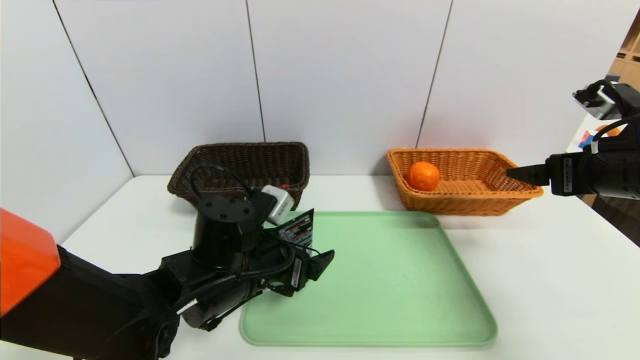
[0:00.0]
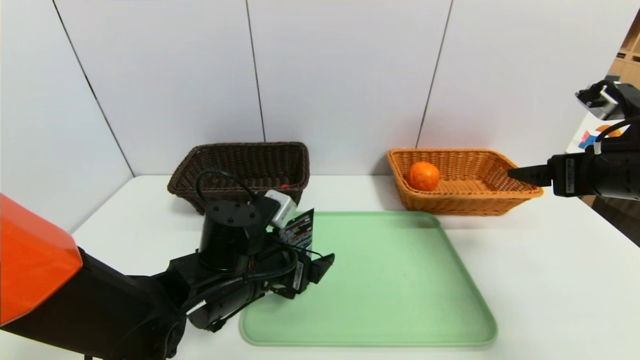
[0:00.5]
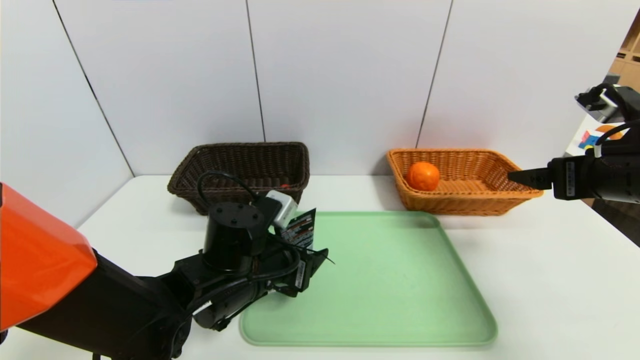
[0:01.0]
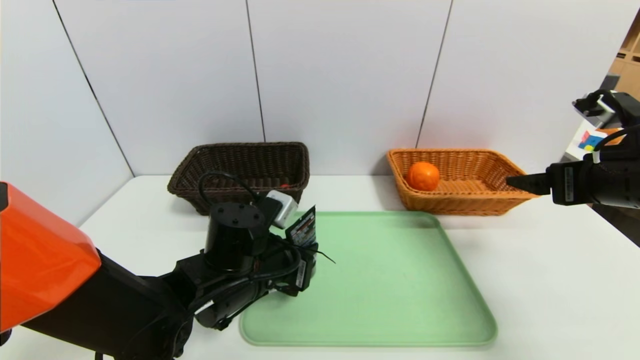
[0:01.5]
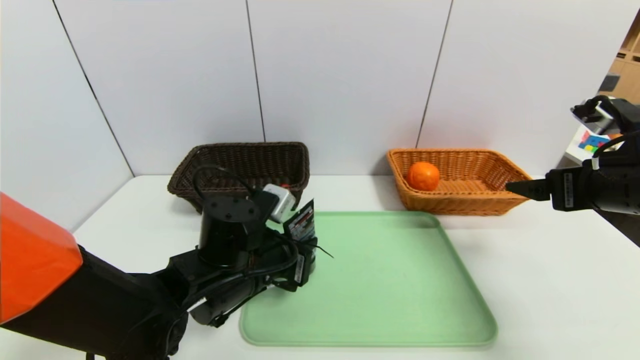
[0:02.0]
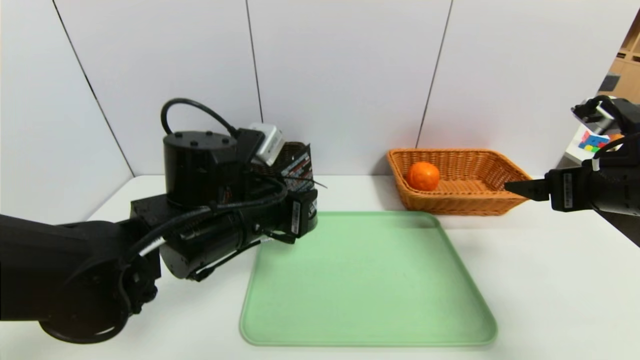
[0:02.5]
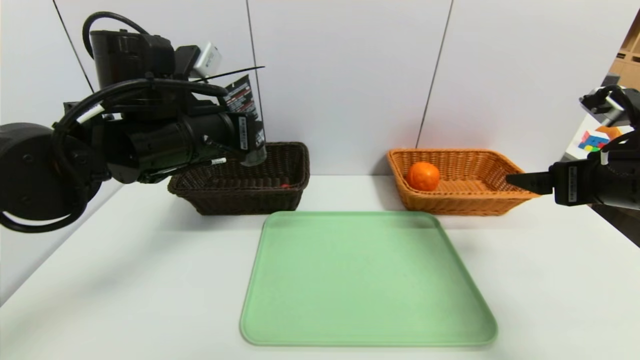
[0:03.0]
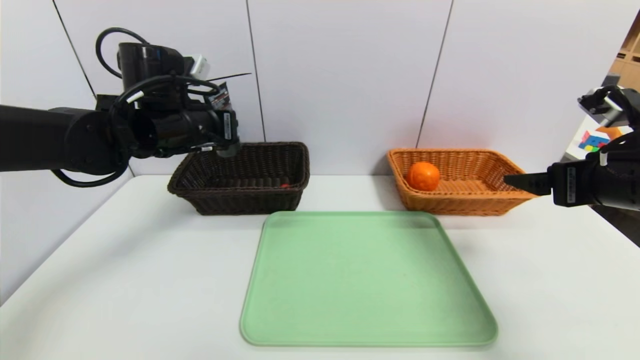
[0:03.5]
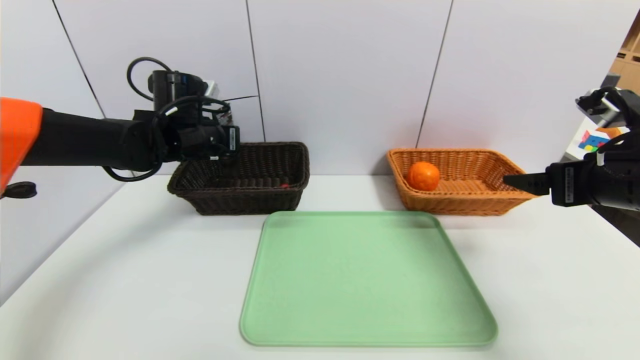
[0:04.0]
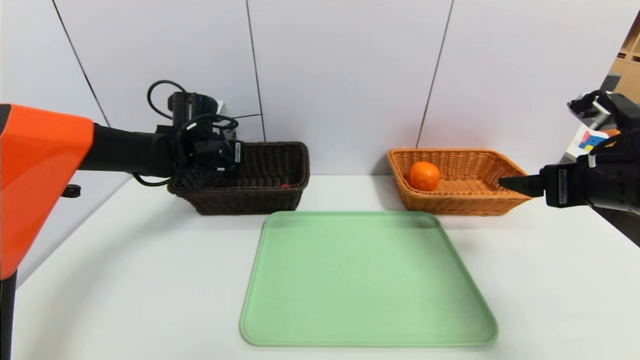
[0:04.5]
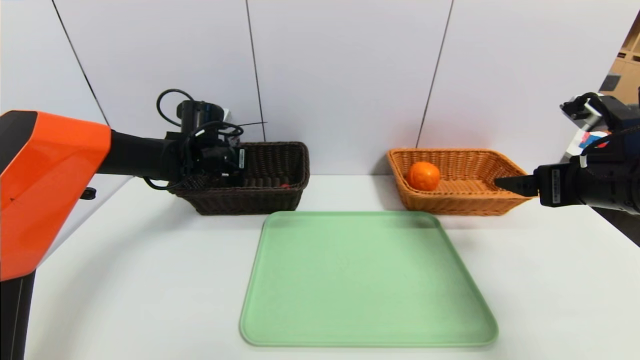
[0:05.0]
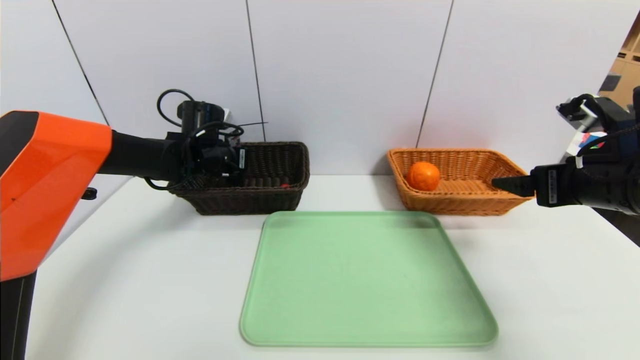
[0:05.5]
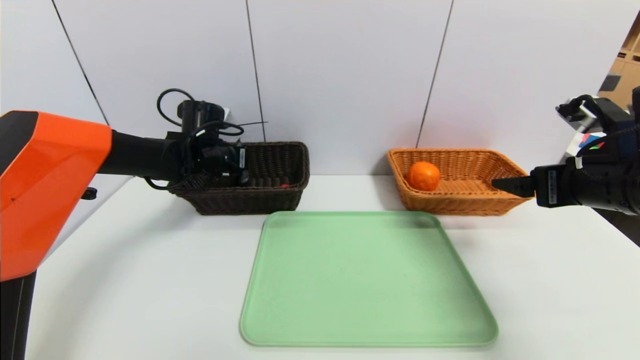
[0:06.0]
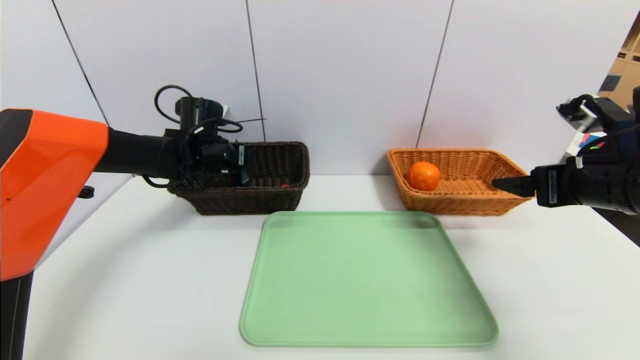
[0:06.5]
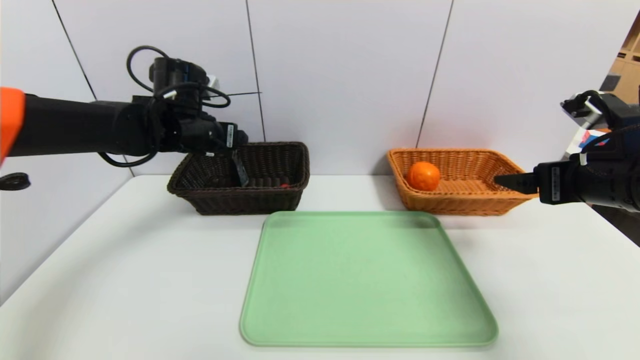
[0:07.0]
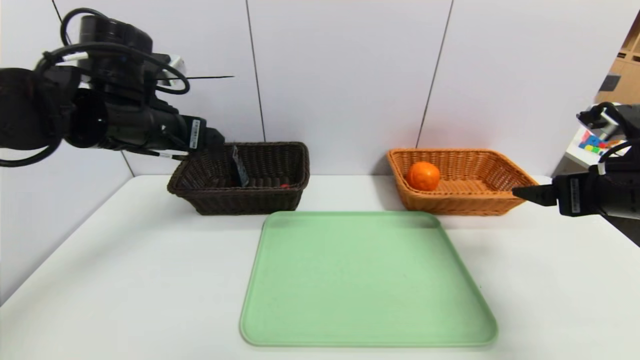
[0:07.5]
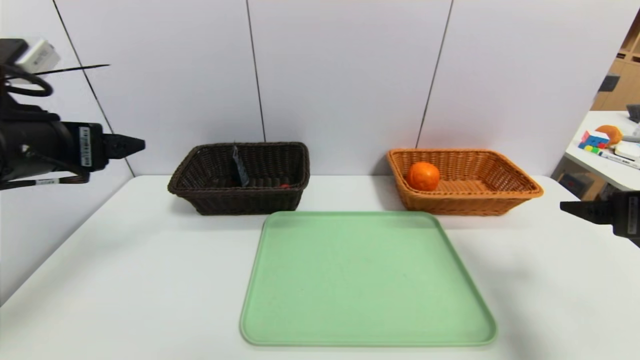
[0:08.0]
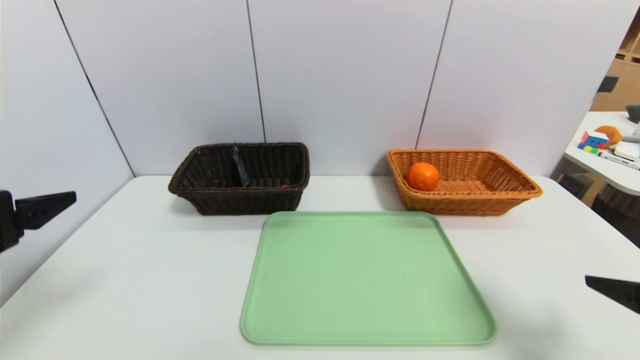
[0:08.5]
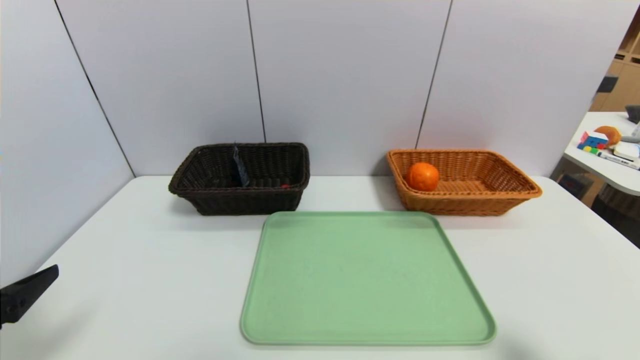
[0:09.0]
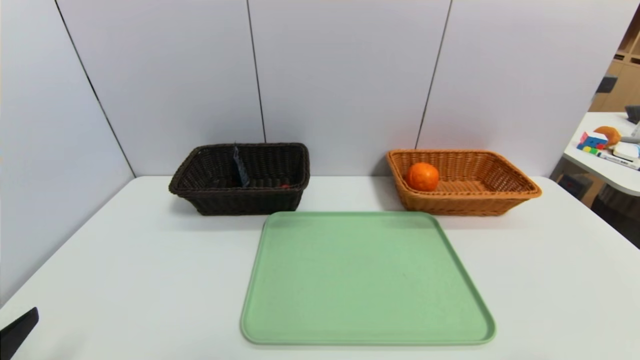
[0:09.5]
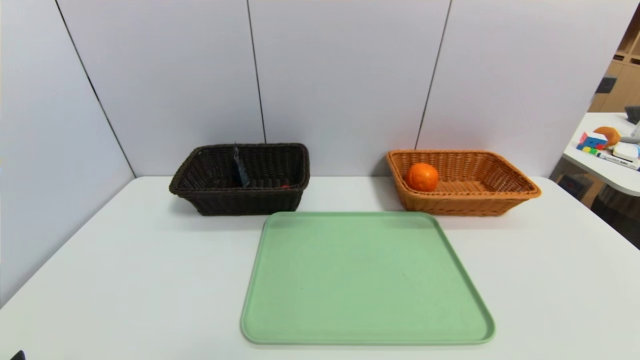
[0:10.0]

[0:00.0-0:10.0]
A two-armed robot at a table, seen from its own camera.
Task of the whole recording: place the food in the right basket with the right gripper, and place the non food items in the left basket with the left gripper.
Step, 0:00.0 to 0:06.0: Grasp the soft cleanser and put it in the left basket.
0:00.0 to 0:02.0: The left gripper closes.
0:02.0 to 0:04.0: The left gripper moves forward, to the left and upward, about 25 cm.
0:04.0 to 0:06.0: The left gripper shifts by roughly 5 cm, and opens.
0:06.0 to 0:08.0: The right gripper goes roughly 5 cm backward, while the left gripper shifts roughly 30 cm backward and upward, and opens its fingers.
0:08.0 to 0:10.0: The two grippers go approximately 25 cm backward and downward.

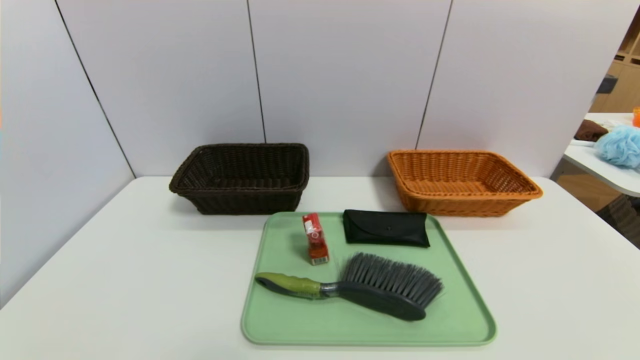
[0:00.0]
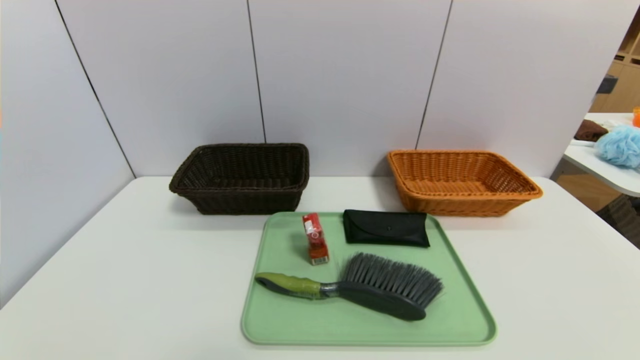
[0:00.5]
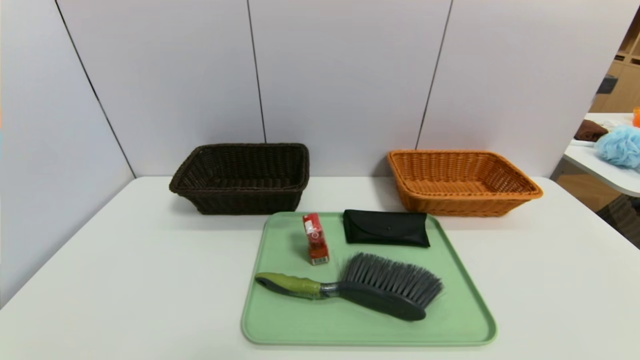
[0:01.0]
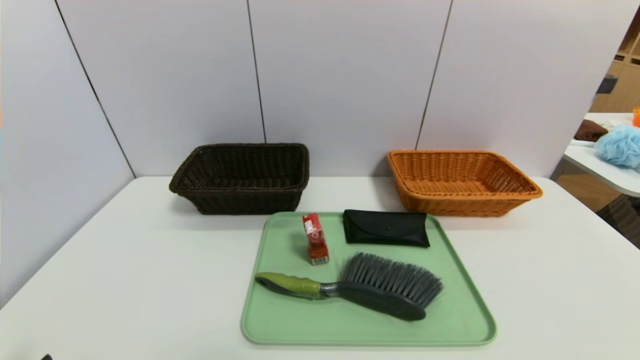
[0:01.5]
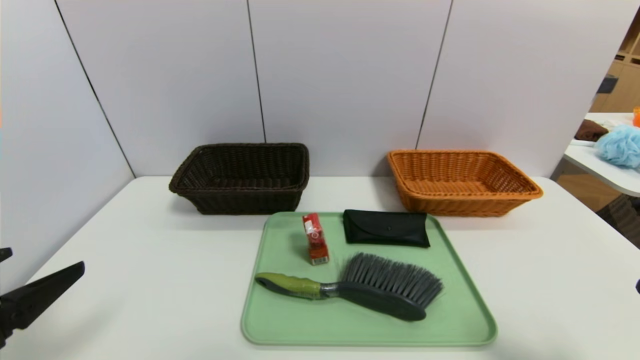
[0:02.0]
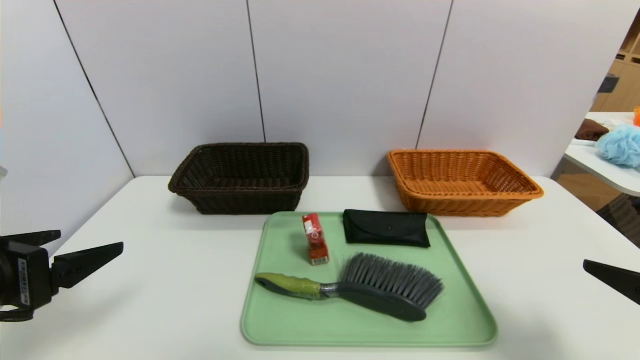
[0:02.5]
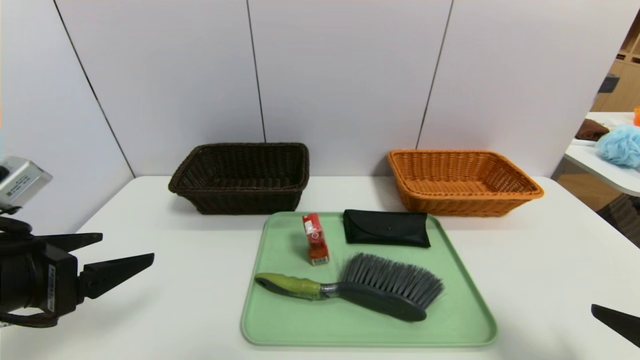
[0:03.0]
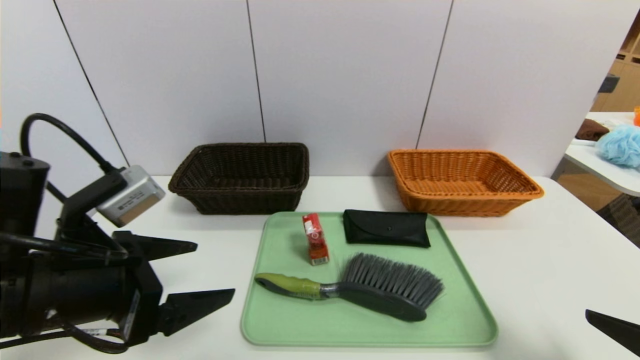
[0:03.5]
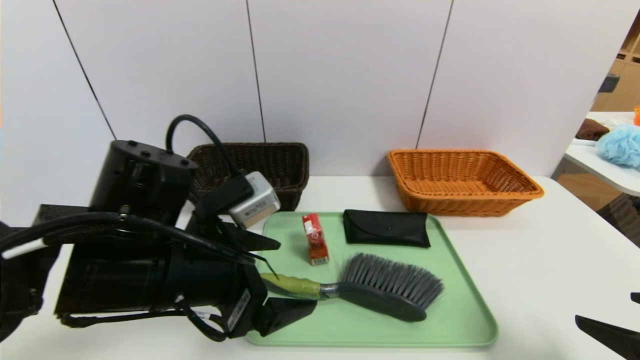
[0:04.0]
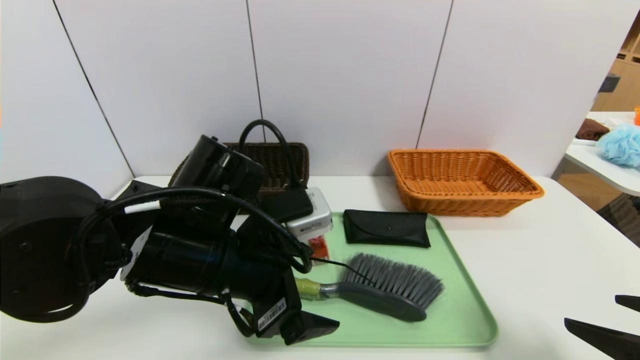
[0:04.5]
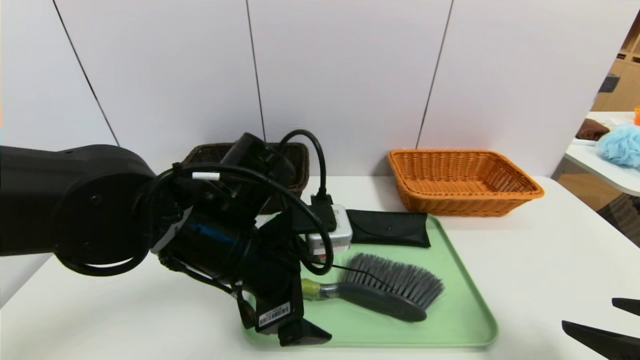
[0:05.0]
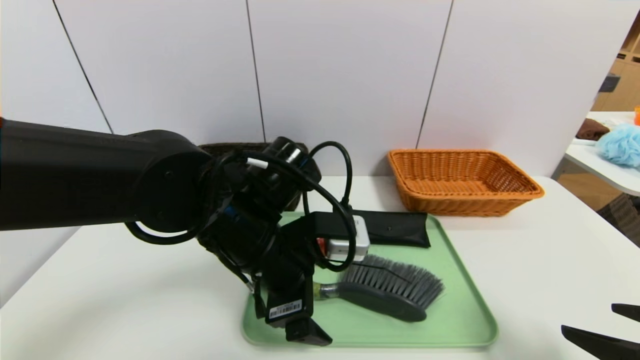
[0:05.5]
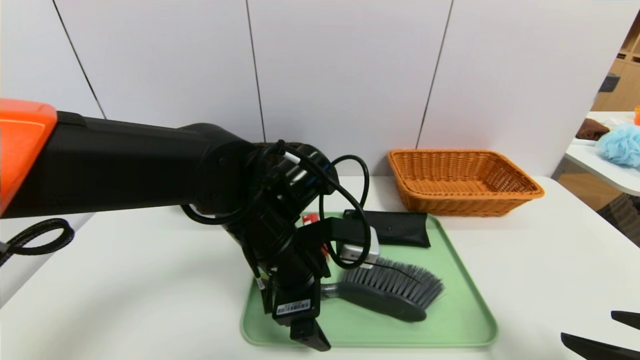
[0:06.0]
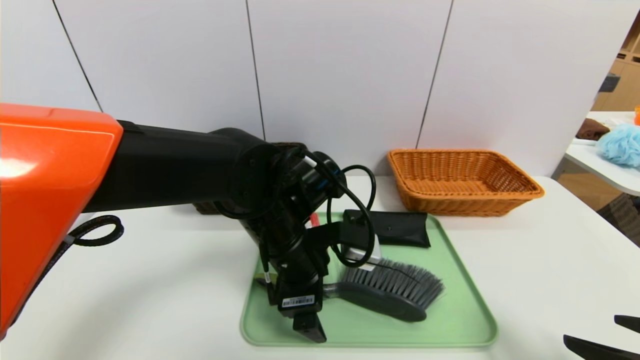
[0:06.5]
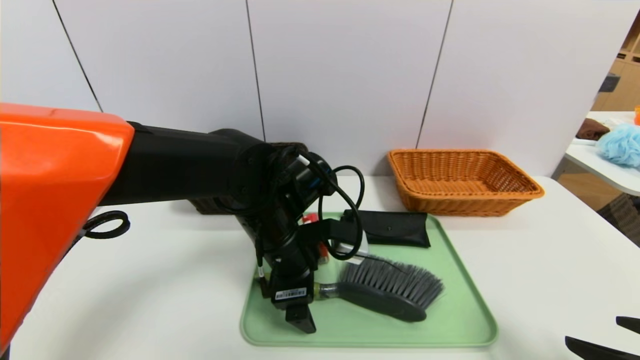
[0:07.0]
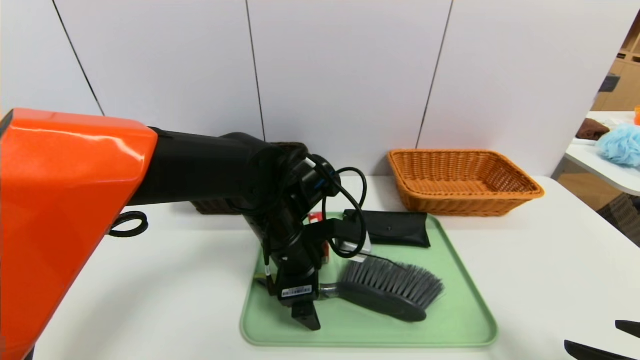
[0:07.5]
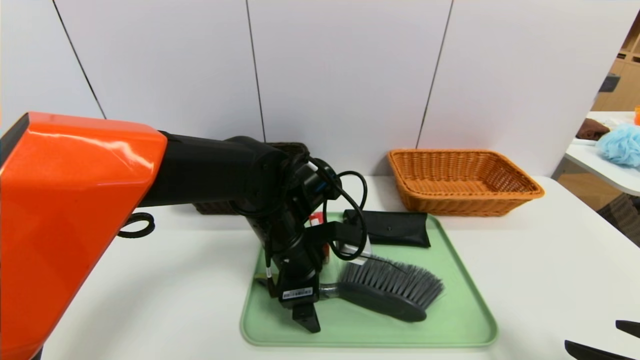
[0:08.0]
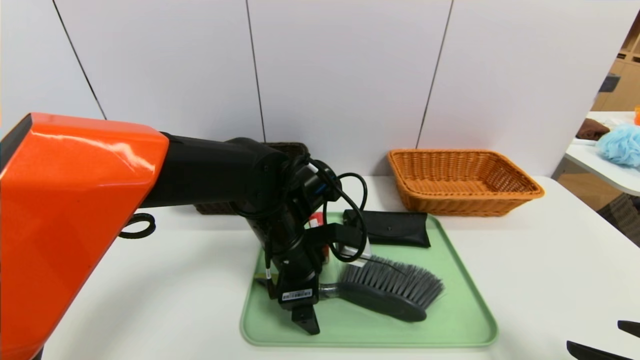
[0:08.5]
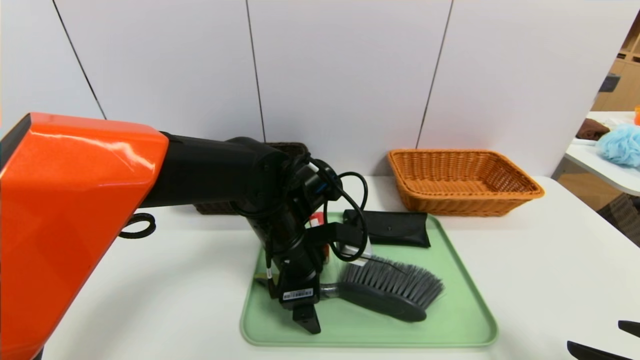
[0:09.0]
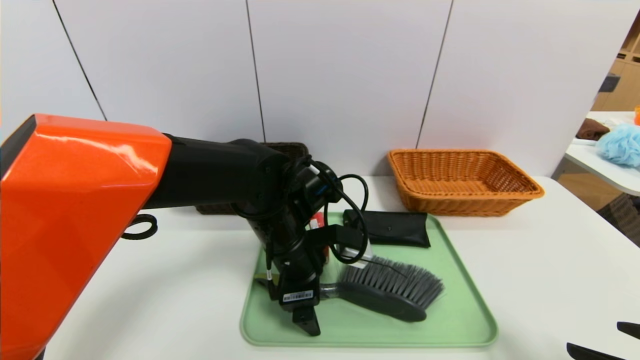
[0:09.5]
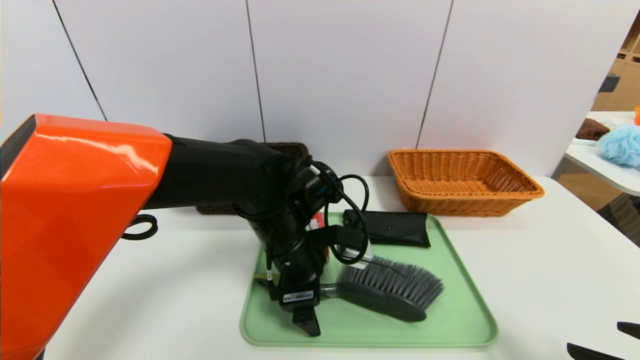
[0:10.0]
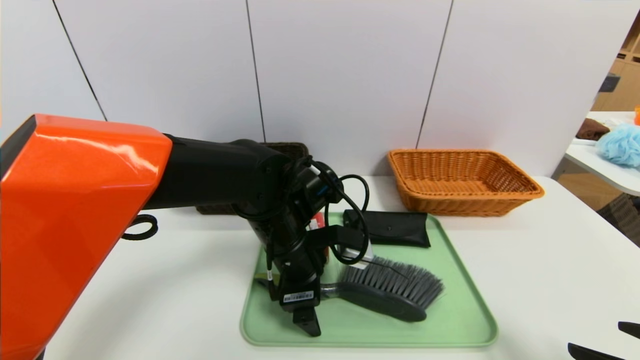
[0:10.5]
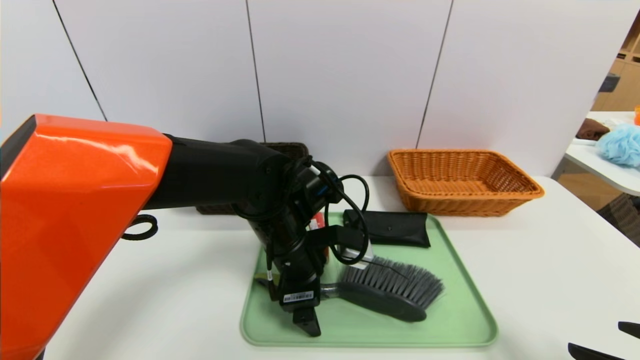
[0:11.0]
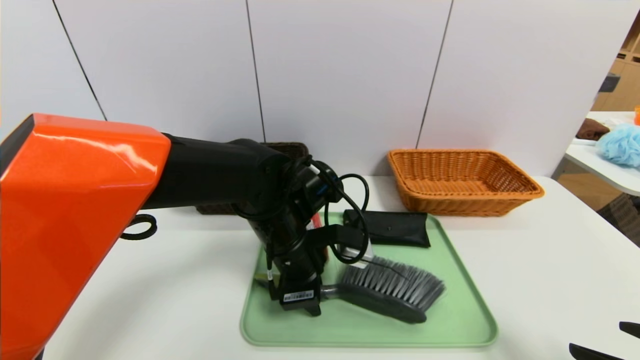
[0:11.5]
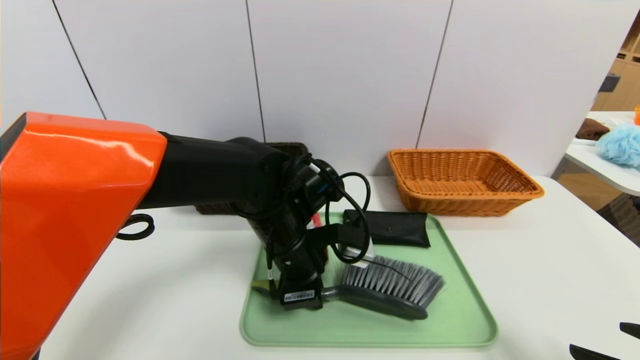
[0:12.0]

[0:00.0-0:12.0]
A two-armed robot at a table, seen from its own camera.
Task of the whole recording: place the food in the right basket with the right gripper, and place the non food items in the left basket with the left gripper.
0:00.0 to 0:02.0: The two grippers go approximately 15 cm upward and forward.
0:02.0 to 0:04.0: The left gripper goes approximately 20 cm to the right and forward.
0:04.0 to 0:06.0: The left gripper heads to the right and forward, covering roughly 10 cm.
0:06.0 to 0:08.0: The grippers move only a little.
0:08.0 to 0:10.0: The two grippers keep their place.
0:10.0 to 0:12.0: The left gripper closes its fingers.
